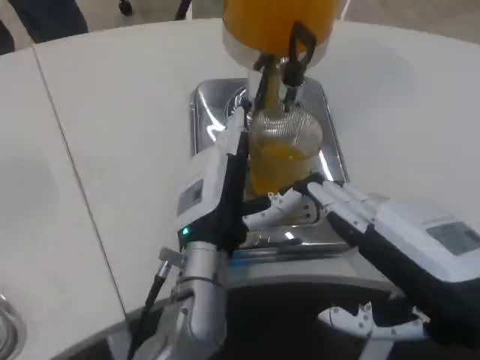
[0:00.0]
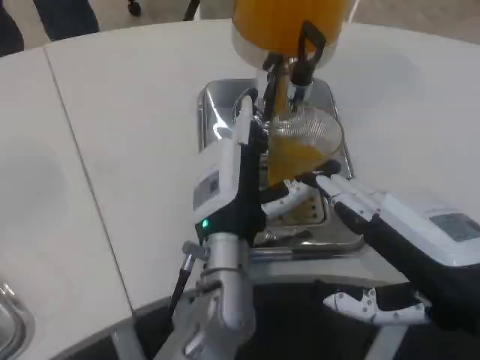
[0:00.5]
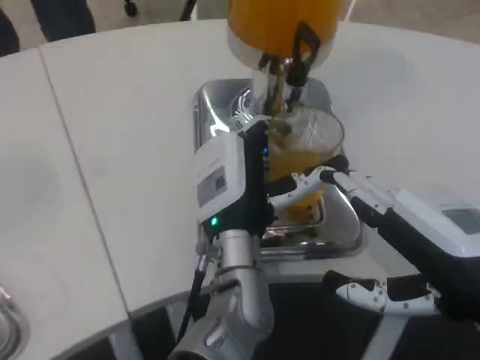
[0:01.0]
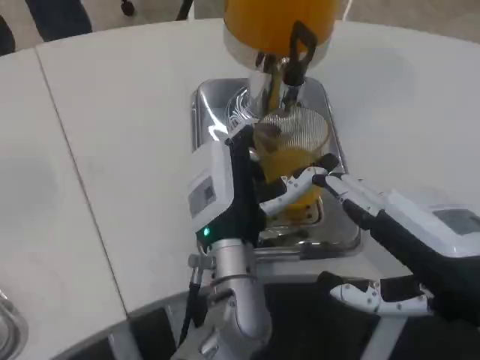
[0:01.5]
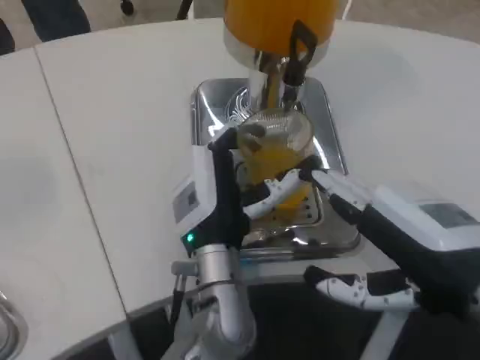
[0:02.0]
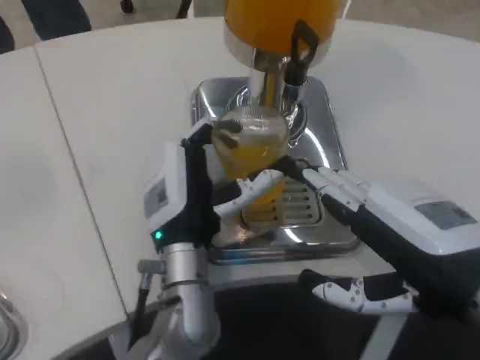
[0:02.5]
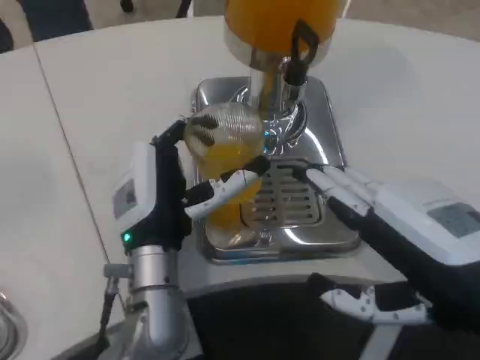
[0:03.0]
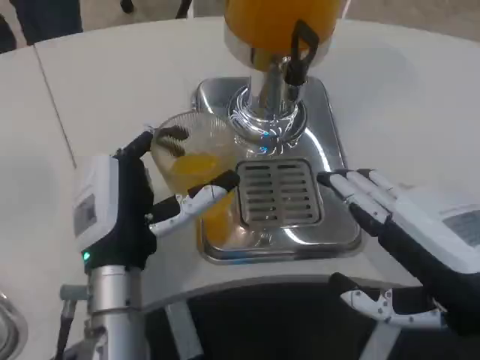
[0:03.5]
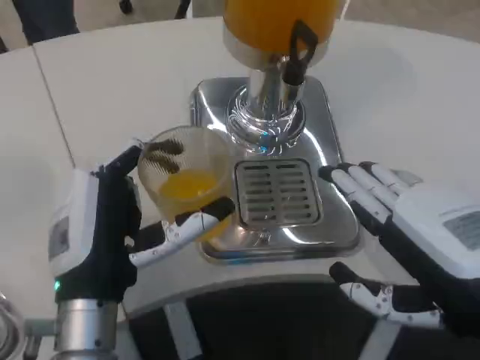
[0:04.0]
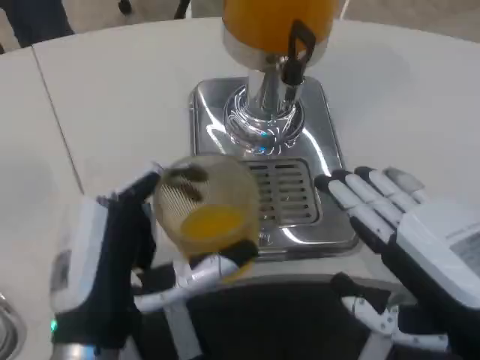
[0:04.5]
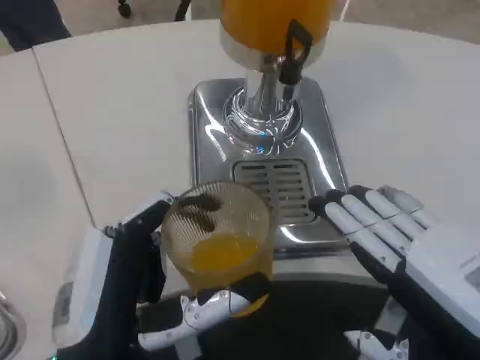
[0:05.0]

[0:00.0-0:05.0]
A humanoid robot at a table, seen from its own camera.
Task of the whole recording: Grasp the cup under the faucet to collect the drink, then remove the cup.
0:02.5 to 0:05.0: The right hand is displaced backward by some 5 cm; the left hand goes approximately 15 cm backward.

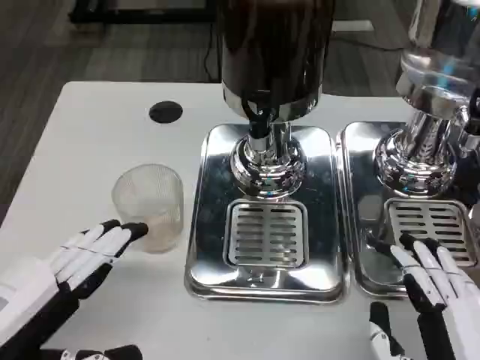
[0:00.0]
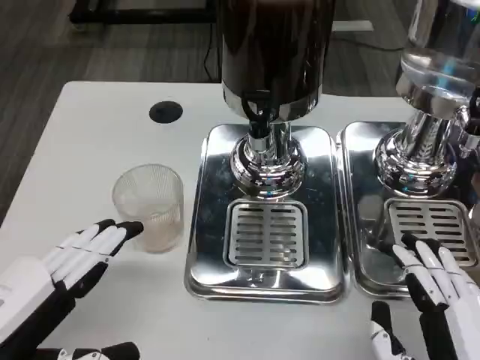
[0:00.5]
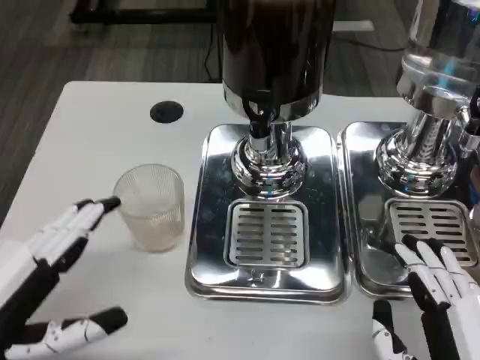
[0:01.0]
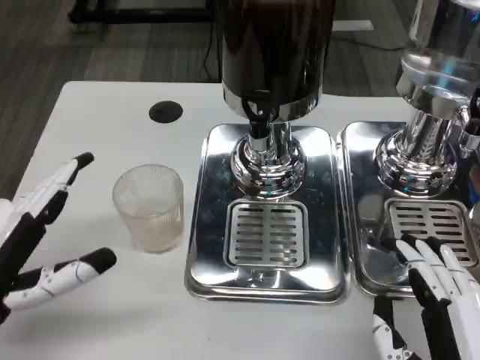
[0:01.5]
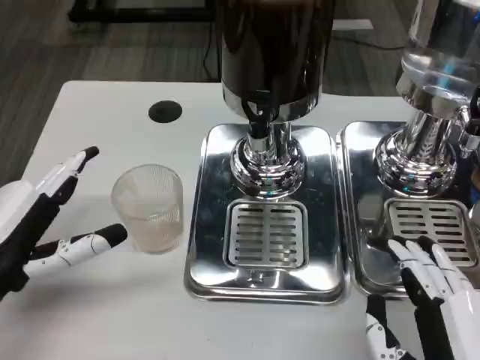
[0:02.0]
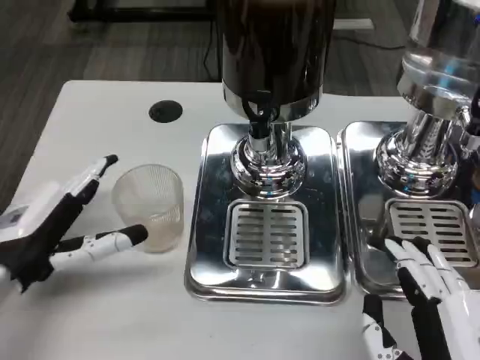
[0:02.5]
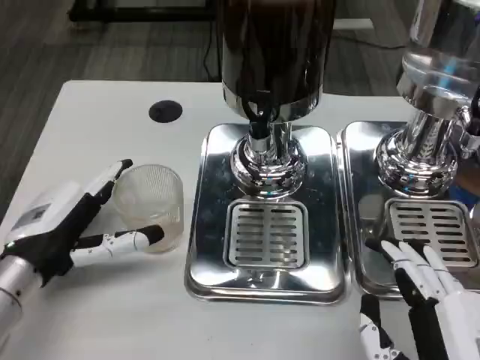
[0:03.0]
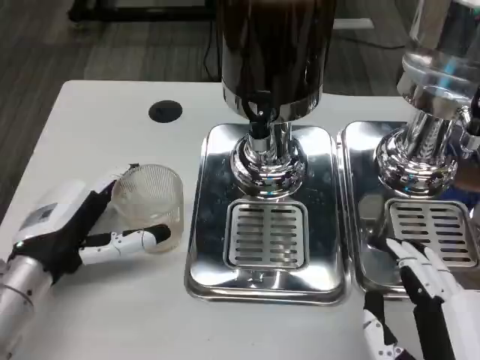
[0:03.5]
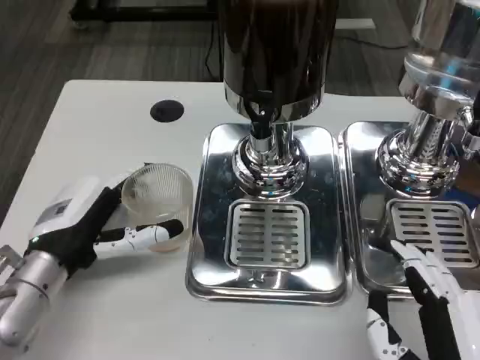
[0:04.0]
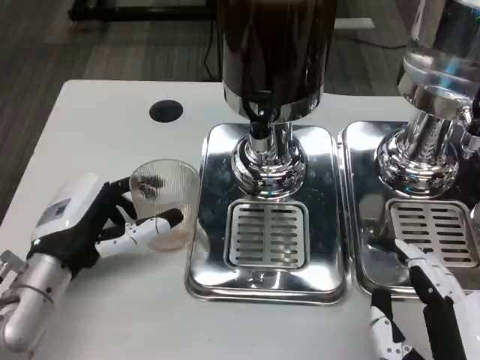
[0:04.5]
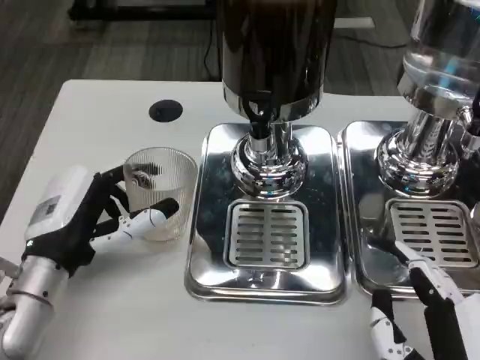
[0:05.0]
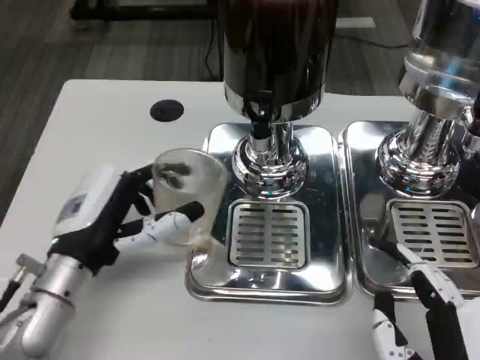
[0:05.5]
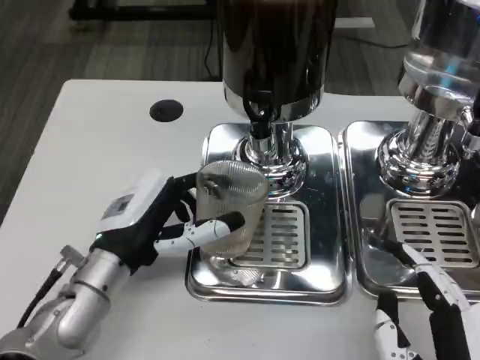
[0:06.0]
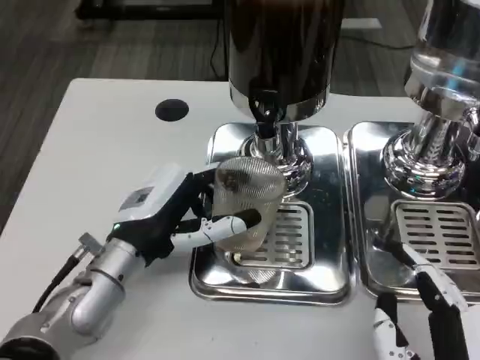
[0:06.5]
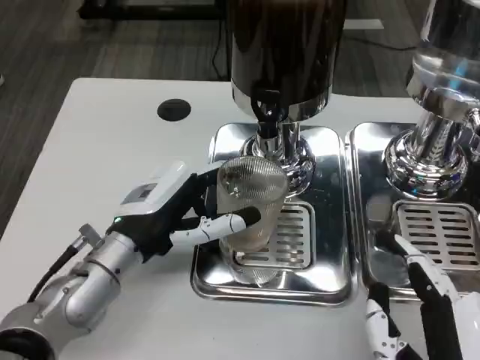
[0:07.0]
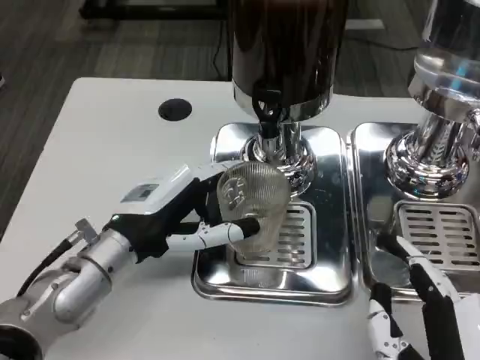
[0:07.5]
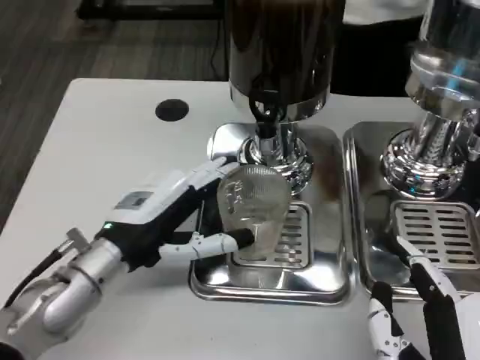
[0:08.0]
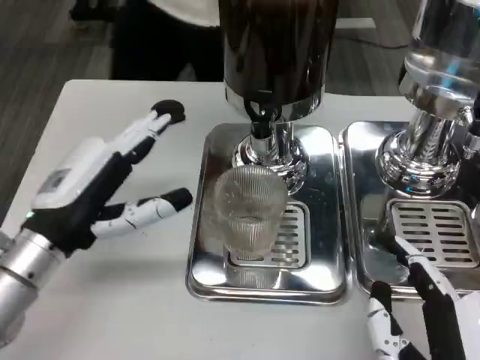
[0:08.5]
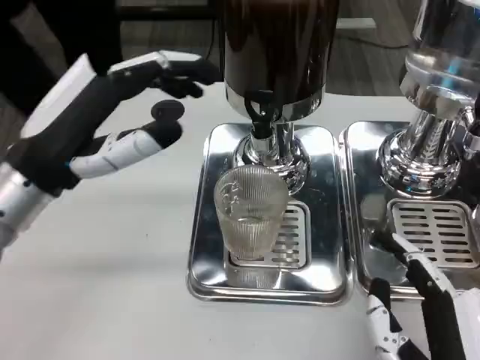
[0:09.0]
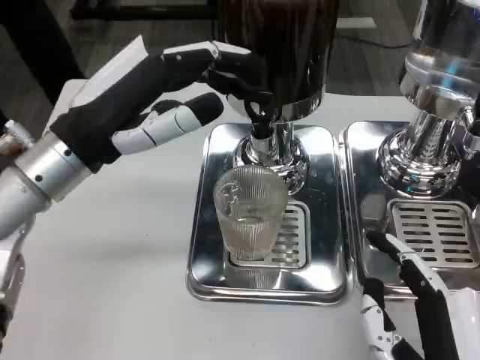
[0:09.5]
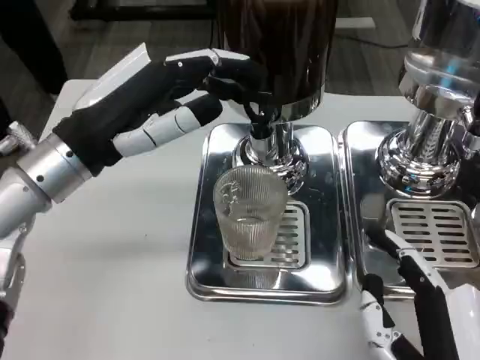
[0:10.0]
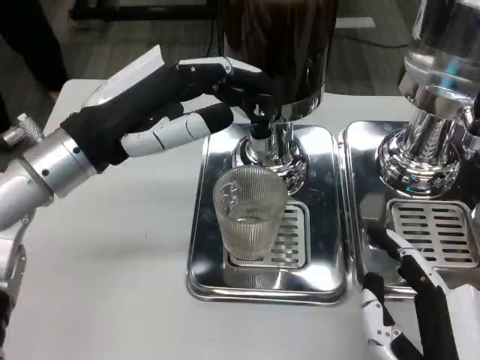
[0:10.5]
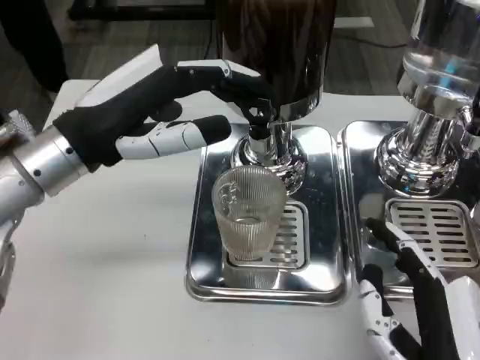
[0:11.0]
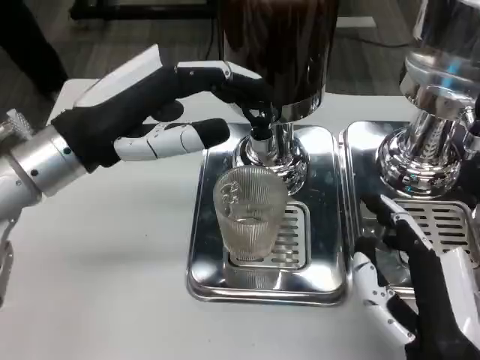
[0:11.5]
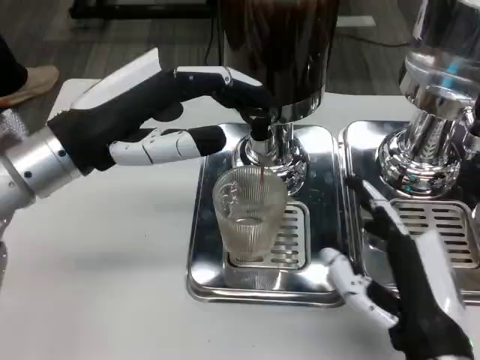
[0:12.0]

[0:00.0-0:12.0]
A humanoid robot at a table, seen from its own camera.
Task of the whole recording: Grasp the cup under the faucet to collect the drink, then remove the cup.
0:00.0 to 0:02.0: The left hand shifts some 10 cm forward.
0:02.0 to 0:04.0: The left hand moves forward, some 5 cm.
0:04.0 to 0:06.0: The left hand shifts approximately 5 cm to the right.
0:08.0 to 0:10.0: The left hand shifts some 10 cm upward.
0:10.0 to 0:12.0: The right hand moves forward, some 5 cm.

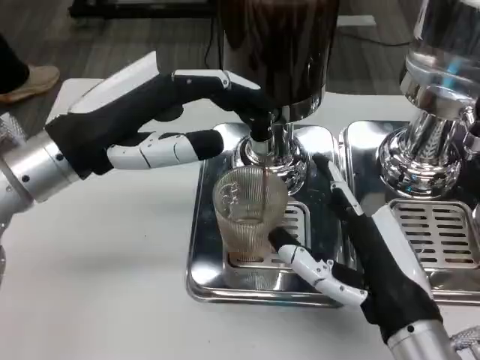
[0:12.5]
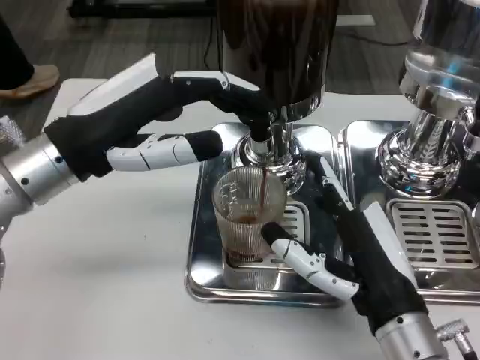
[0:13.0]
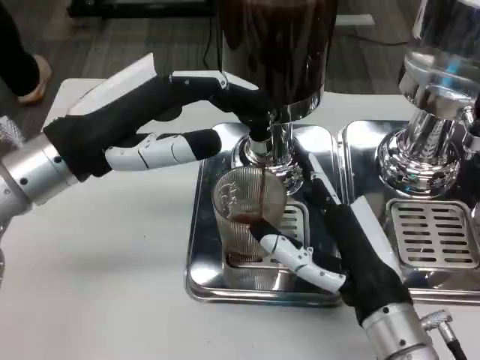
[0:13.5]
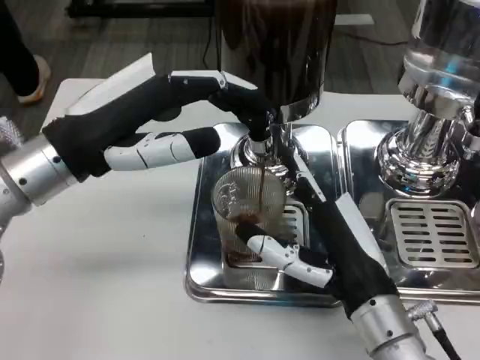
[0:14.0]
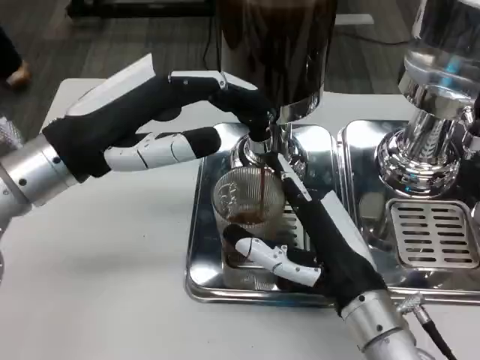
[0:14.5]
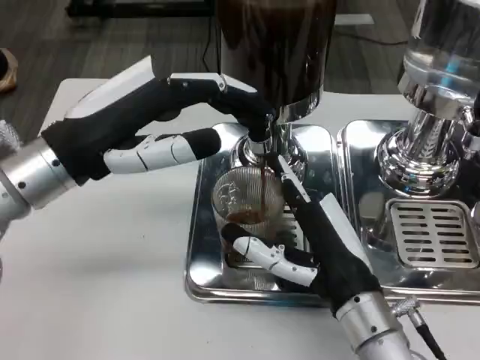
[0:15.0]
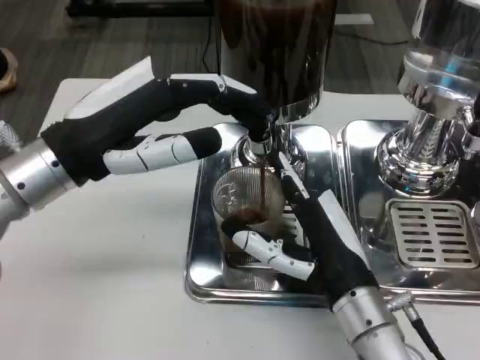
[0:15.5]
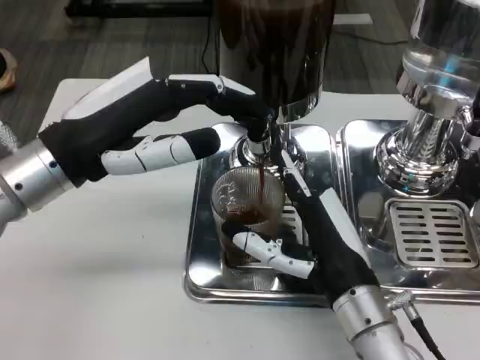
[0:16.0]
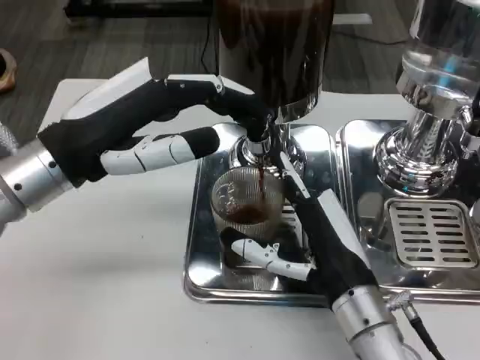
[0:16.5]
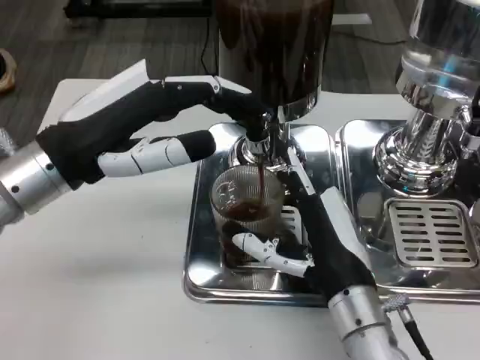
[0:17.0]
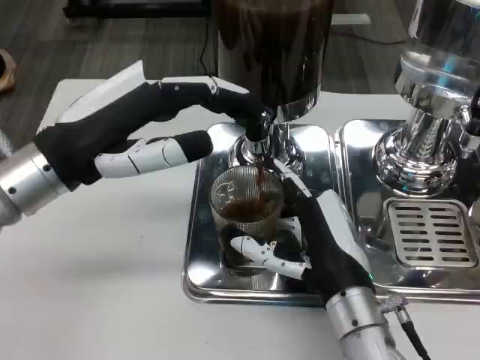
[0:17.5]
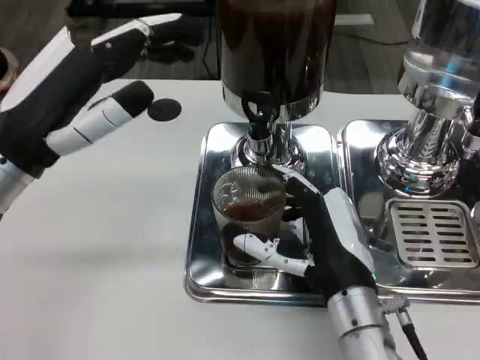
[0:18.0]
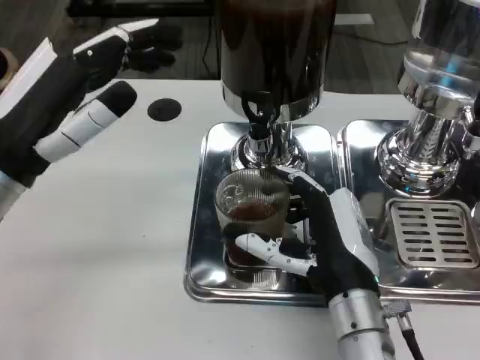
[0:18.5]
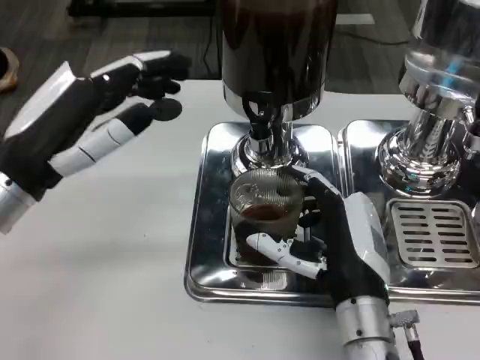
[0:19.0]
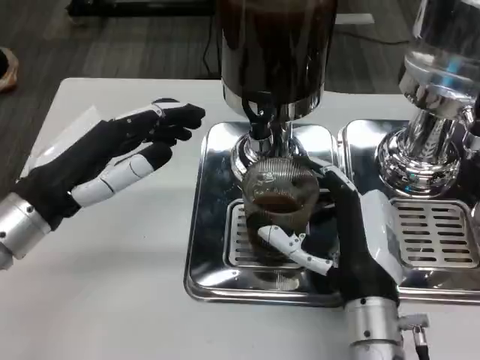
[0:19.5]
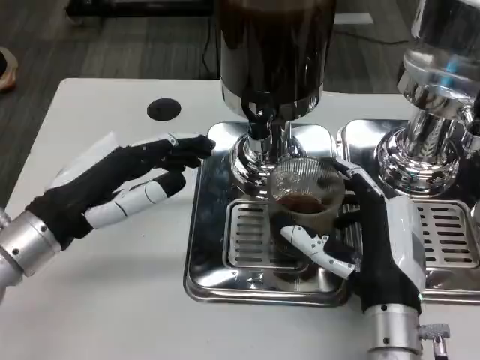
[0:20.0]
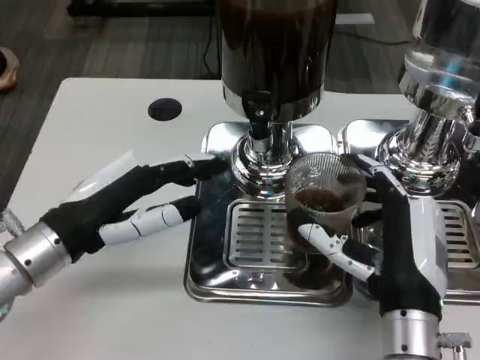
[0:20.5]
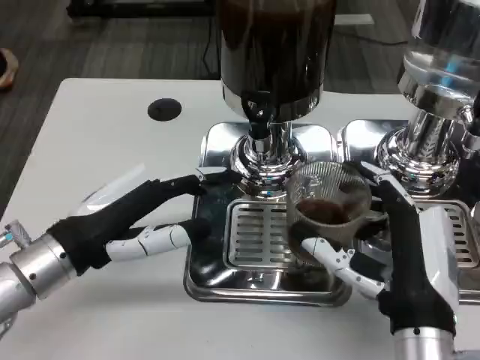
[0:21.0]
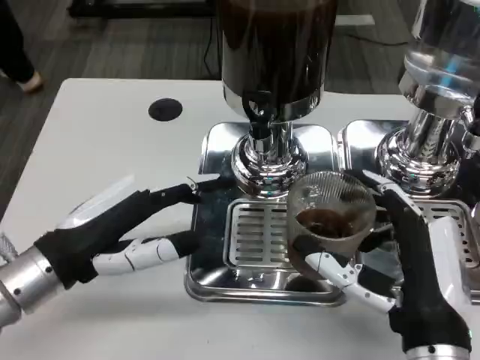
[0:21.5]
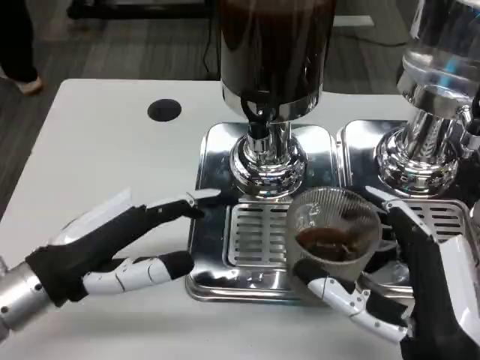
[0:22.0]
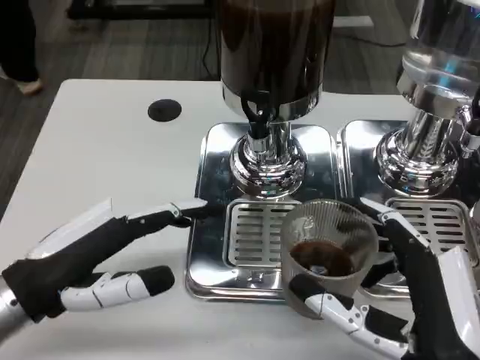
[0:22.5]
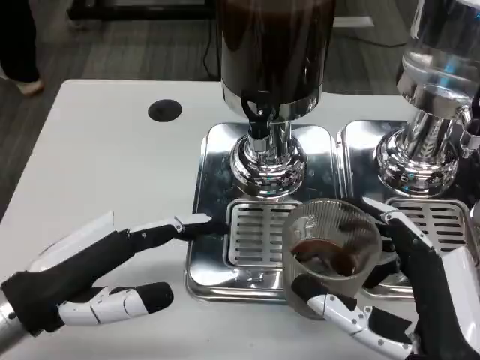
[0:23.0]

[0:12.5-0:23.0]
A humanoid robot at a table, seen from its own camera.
Task of the whole recording: Grasp the cup under the faucet to collect the drink, then remove the cup.
0:12.5 to 0:14.5: The right hand moves some 5 cm.
0:14.5 to 0:16.5: There are only small adjustments of the hands.
0:19.0 to 0:21.0: The right hand changes place by roughly 5 cm, while the left hand ends up about 5 cm from where it was.
0:21.0 to 0:23.0: The two hands go some 5 cm backward.
